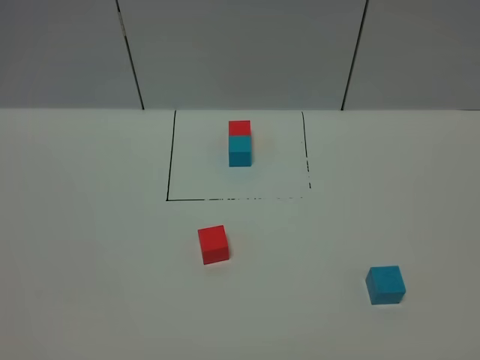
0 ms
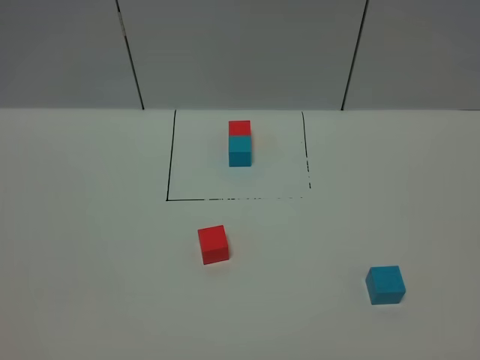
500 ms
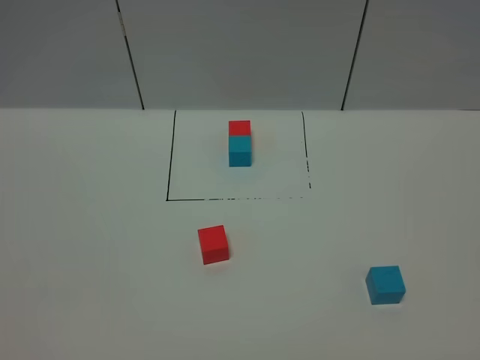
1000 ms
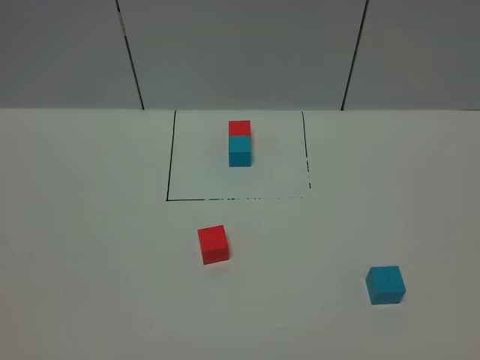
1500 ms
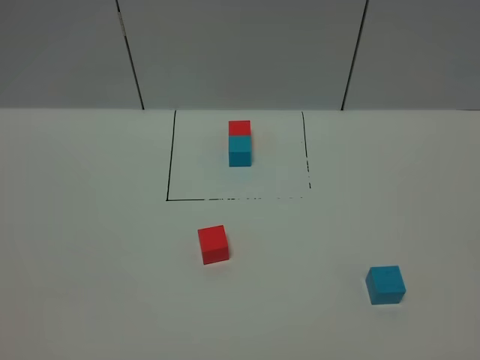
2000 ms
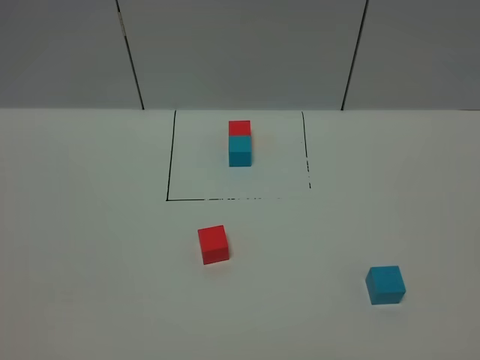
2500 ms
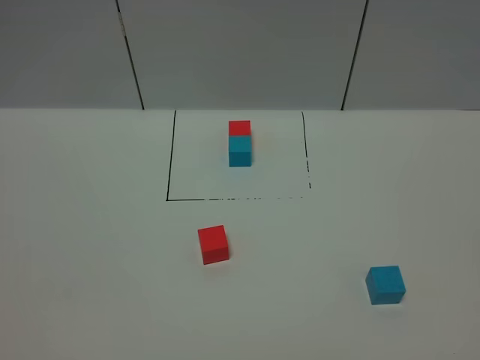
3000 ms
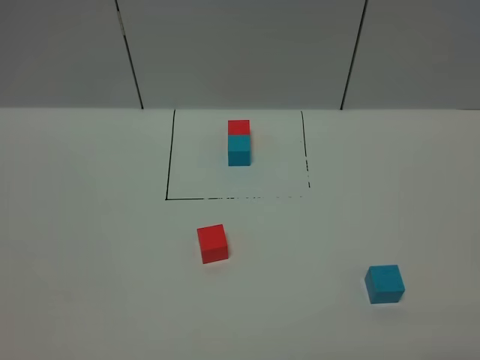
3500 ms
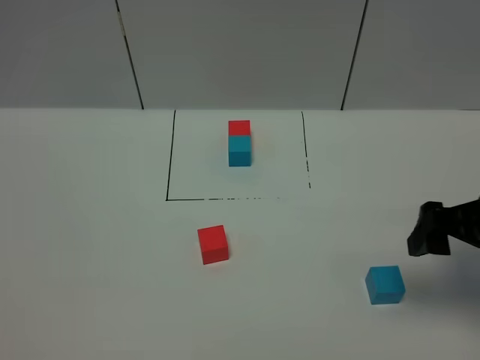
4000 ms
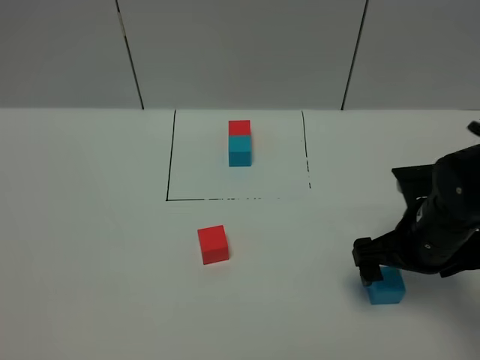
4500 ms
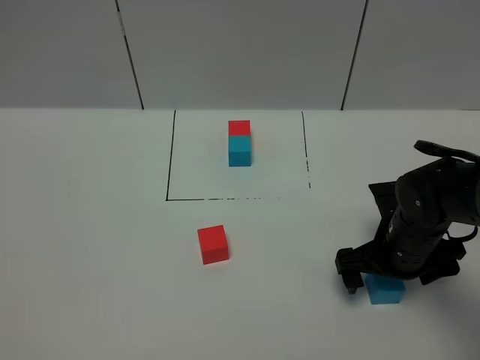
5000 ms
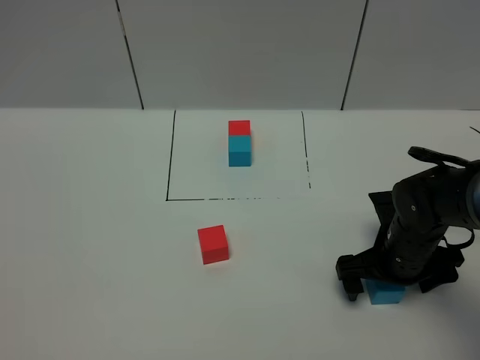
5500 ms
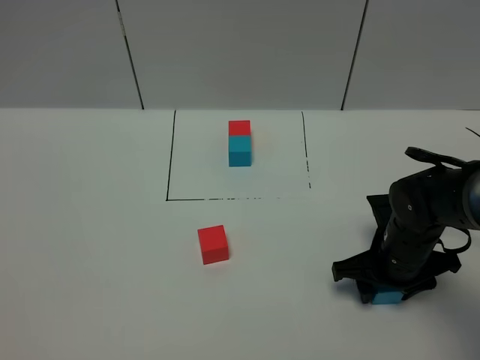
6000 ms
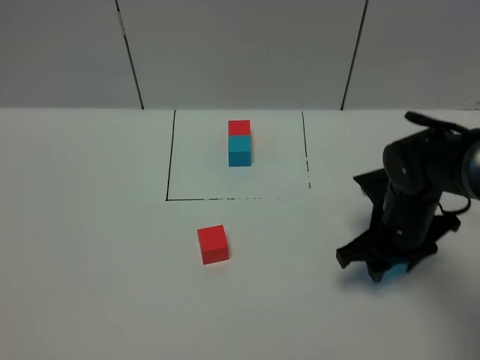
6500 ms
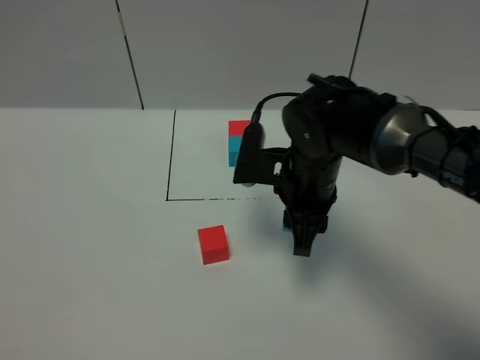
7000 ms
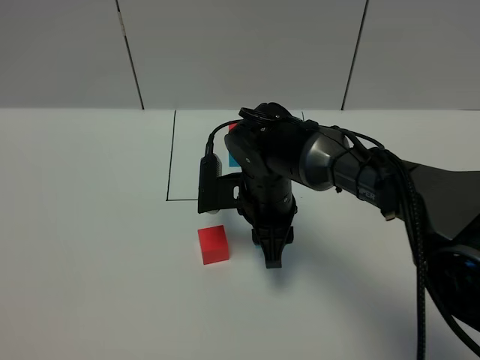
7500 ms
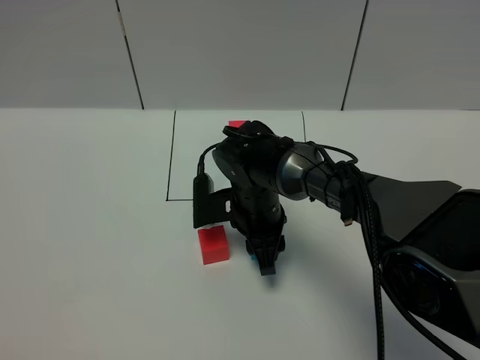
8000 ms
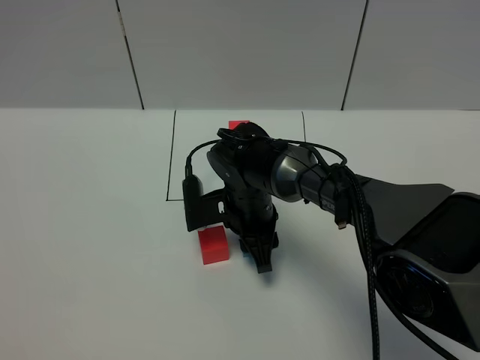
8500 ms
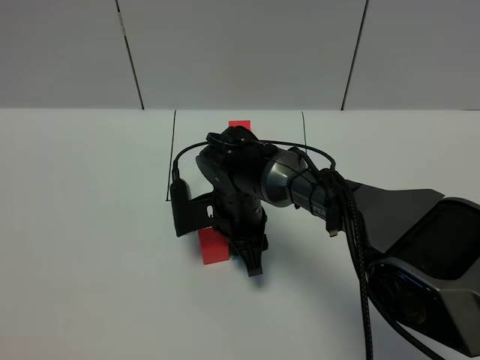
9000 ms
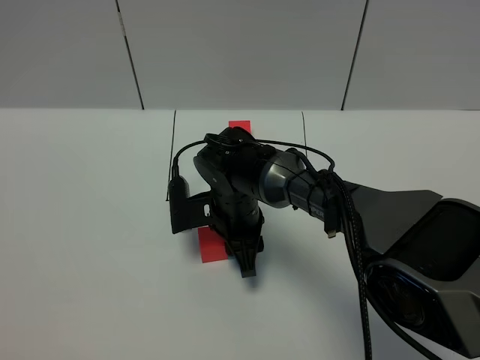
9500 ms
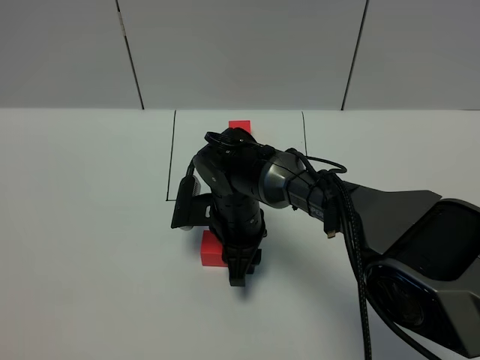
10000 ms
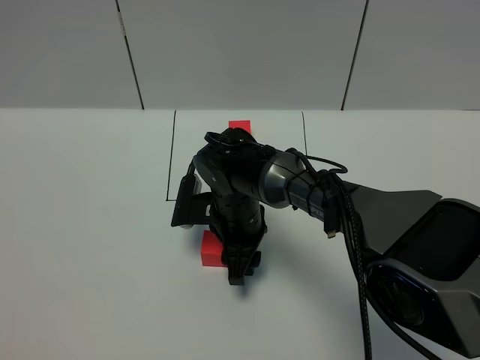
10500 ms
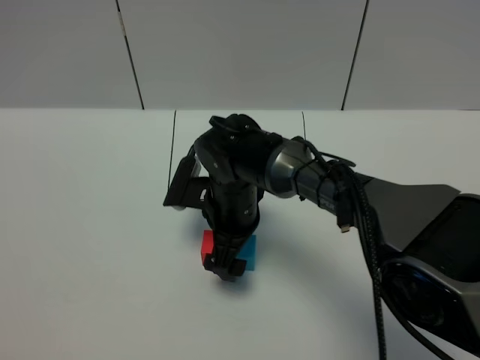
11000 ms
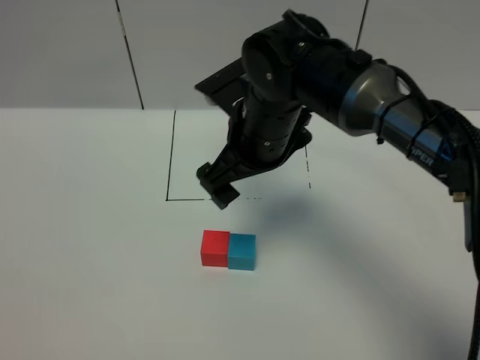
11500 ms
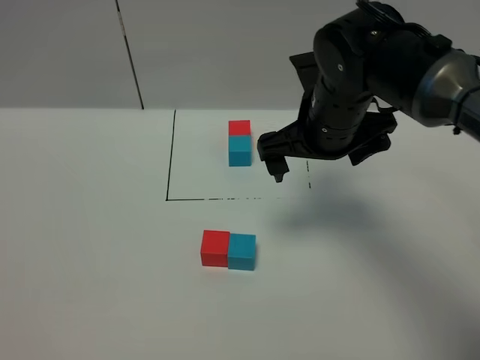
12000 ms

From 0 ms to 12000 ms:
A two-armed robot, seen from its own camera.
Task of the whole recording: According to the building block template in front, assemble the scattered blocks together.
Step, from 0 ms to 11500 ms: Put the blue cube on the right of the red cube.
From 2000 ms to 4000 ms: The right gripper goes about 25 cm forward.
From 4000 ms to 6000 ms: The right gripper goes approximately 20 cm downward, forward and to the left, and closes.
From 6000 ms to 8000 ms: The right gripper goes approximately 20 cm to the left and forward.
From 8000 ms to 10000 ms: The grippers make only small movements.
From 10000 ms to 12000 ms: The right gripper is displaced upward and to the right by approximately 20 cm, and opens its fingers.

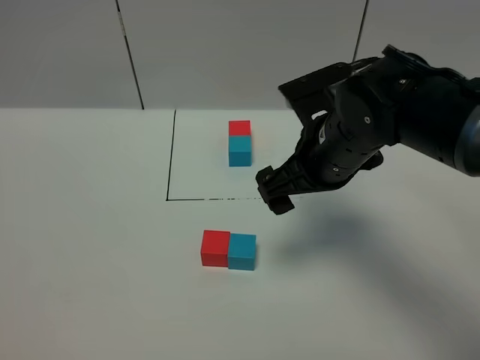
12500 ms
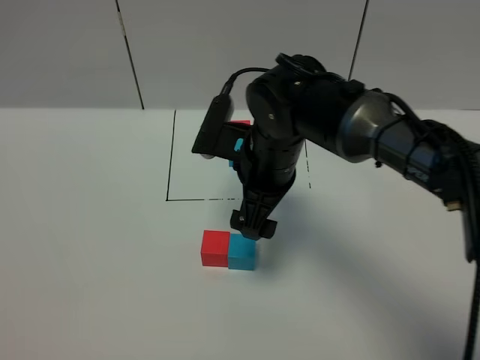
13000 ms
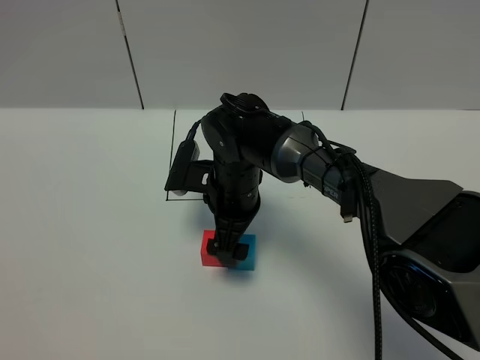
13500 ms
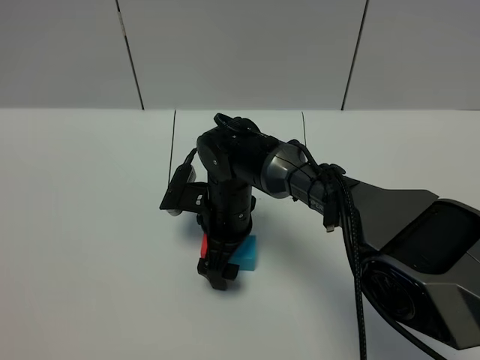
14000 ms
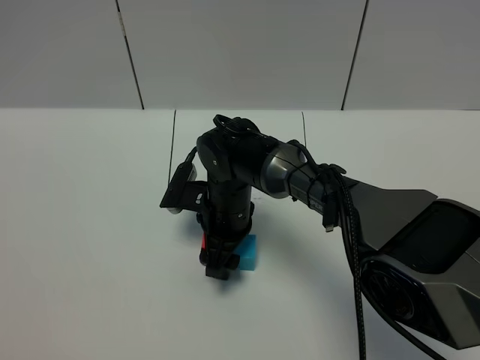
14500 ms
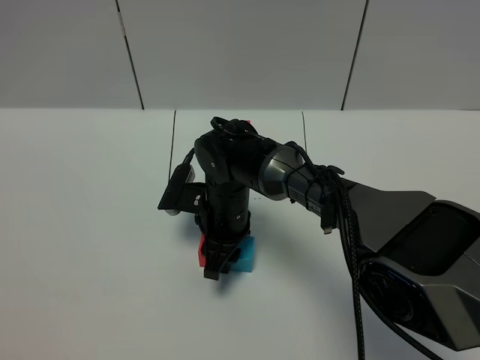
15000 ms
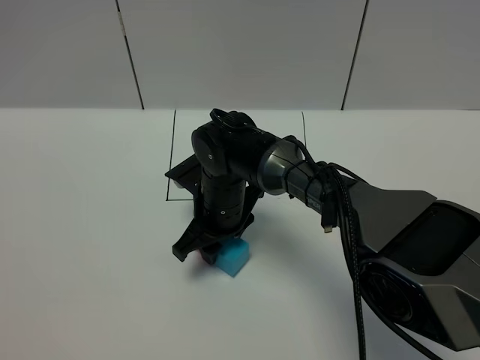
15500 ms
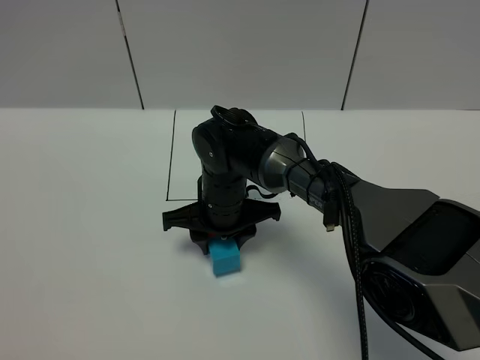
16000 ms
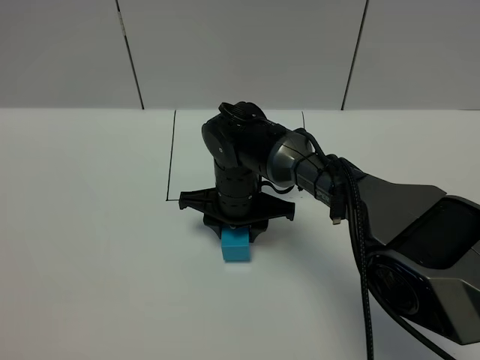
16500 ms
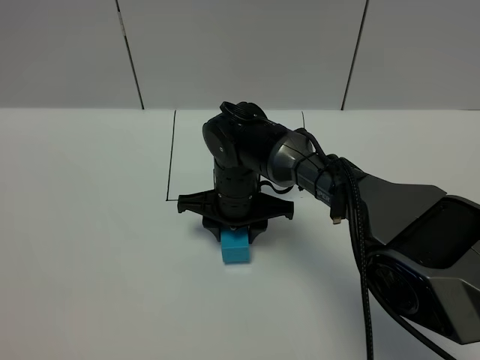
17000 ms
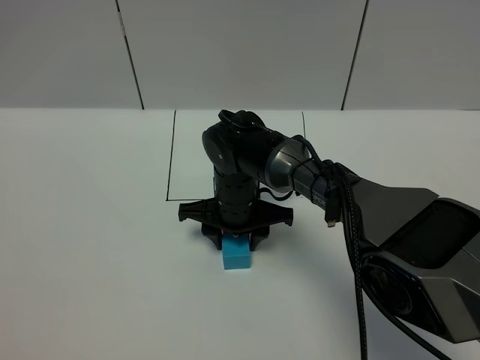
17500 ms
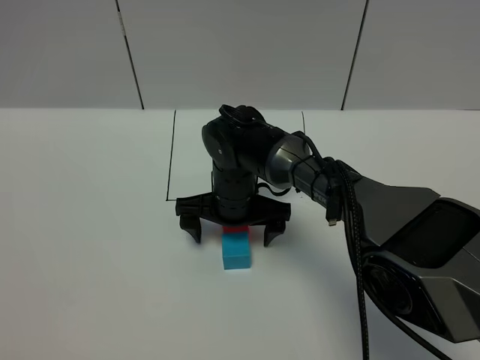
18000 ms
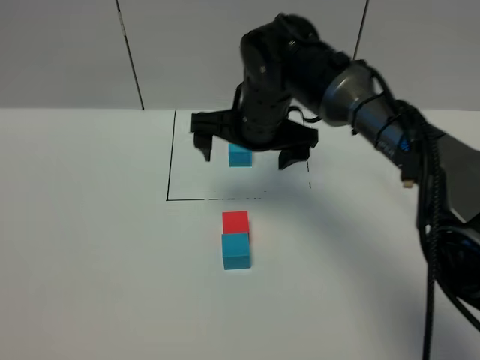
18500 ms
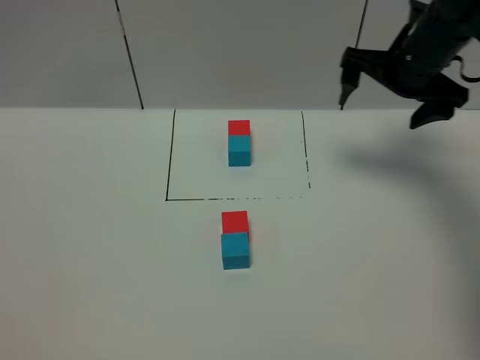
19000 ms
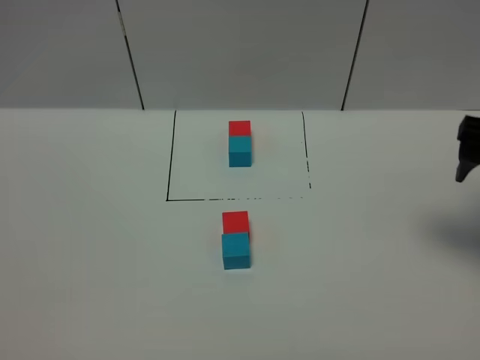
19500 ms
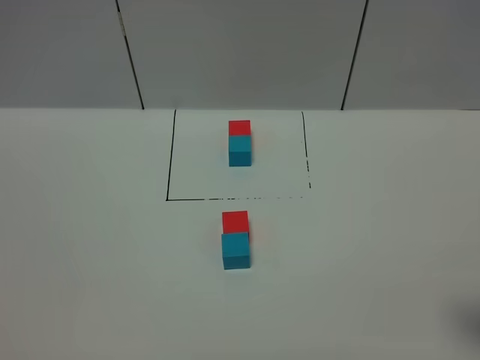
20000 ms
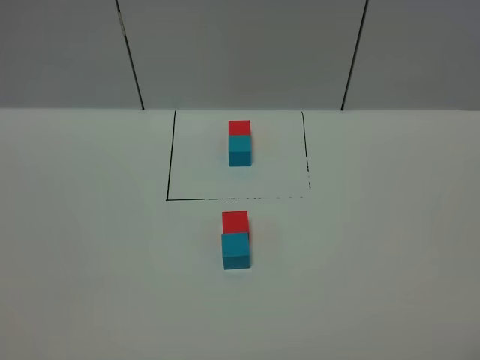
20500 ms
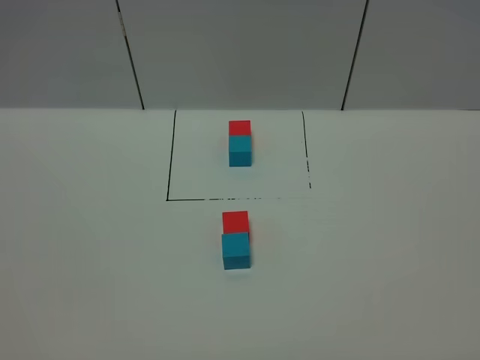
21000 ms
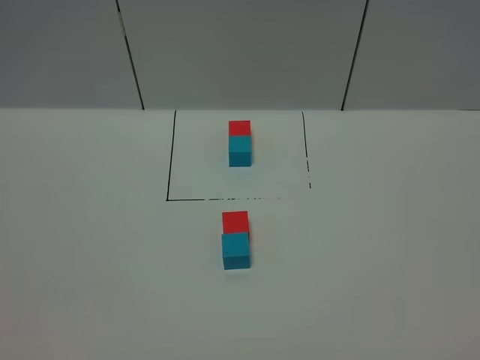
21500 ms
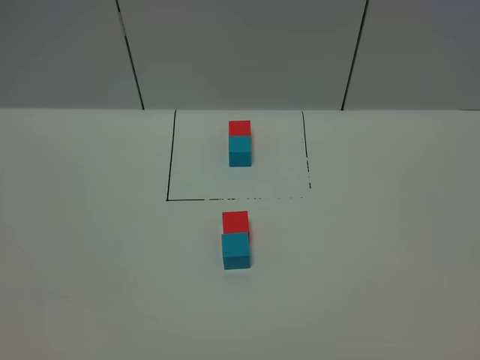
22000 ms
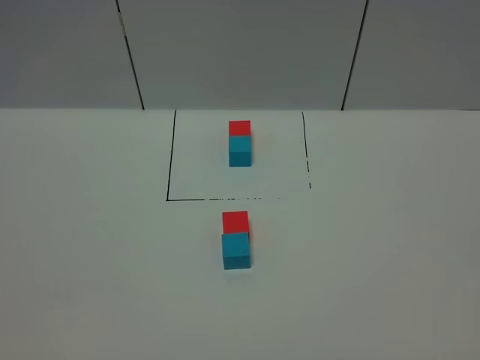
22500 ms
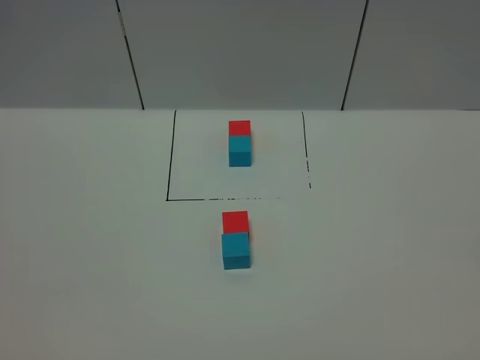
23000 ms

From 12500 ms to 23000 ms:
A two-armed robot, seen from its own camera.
Task of the whole recording: According to the building block template in front, assemble the scattered blocks together.
Step, from 12500 ms to 18500 ms: Adjust the pose of the building blocks.
From 12500 ms to 14500 ms: The right gripper travels downward, to the left and forward by roughly 20 cm, and closes its fingers.
From 14500 ms to 16500 ms: The right gripper closes its fingers.
From 16500 ms to 19000 ms: The right gripper travels to the right and upward by some 30 cm, and opens its fingers.
From 19000 ms to 21000 ms: The right gripper shifts some 50 cm backward.
